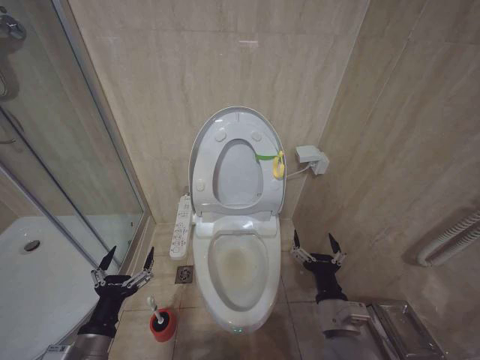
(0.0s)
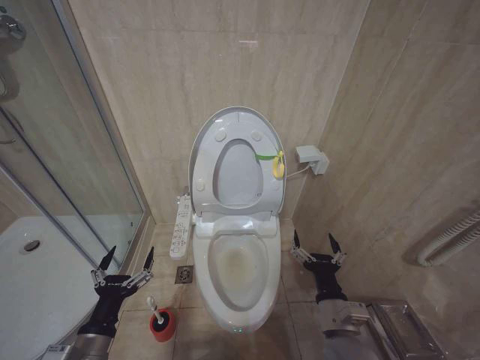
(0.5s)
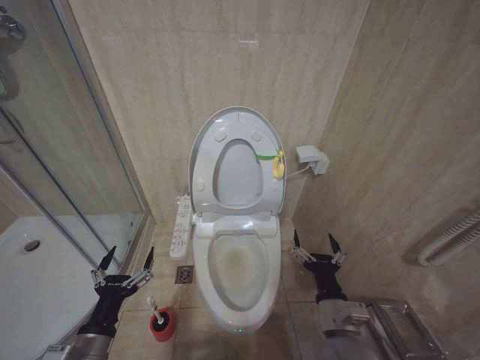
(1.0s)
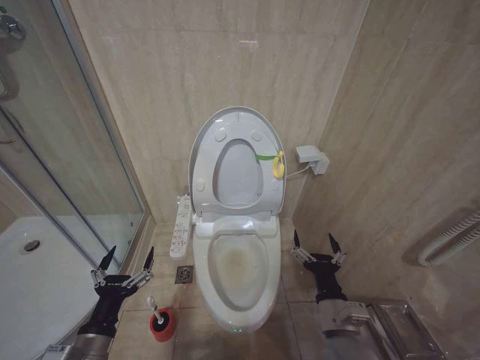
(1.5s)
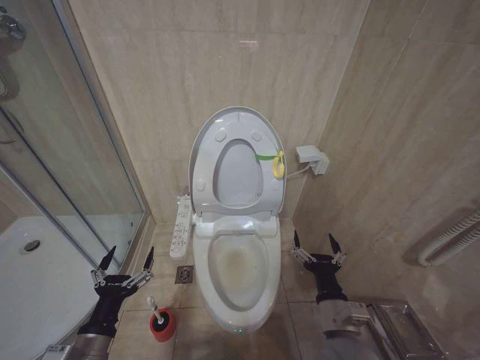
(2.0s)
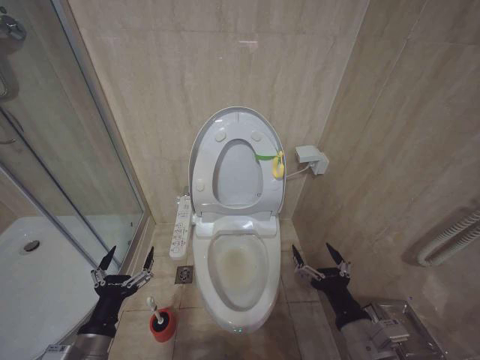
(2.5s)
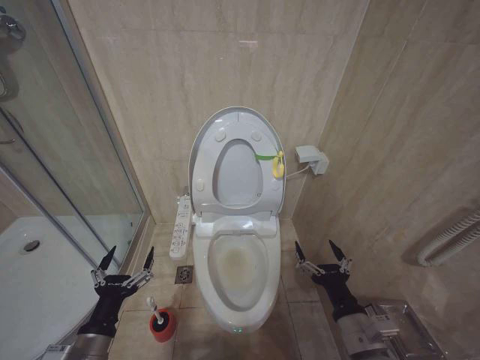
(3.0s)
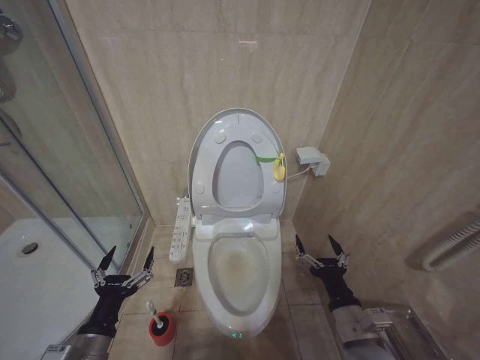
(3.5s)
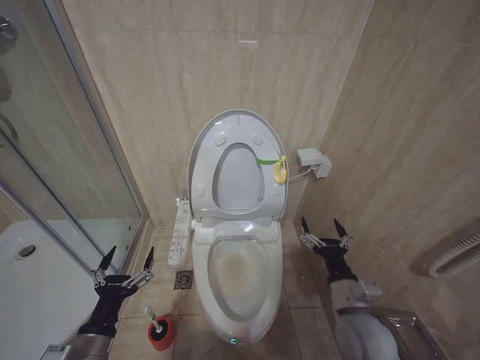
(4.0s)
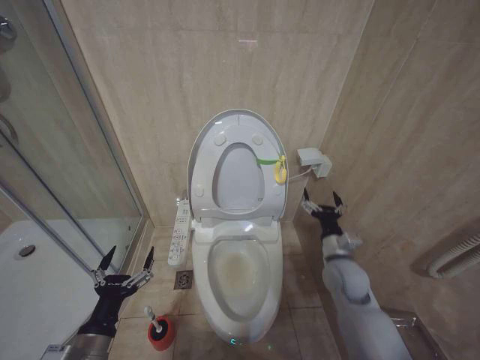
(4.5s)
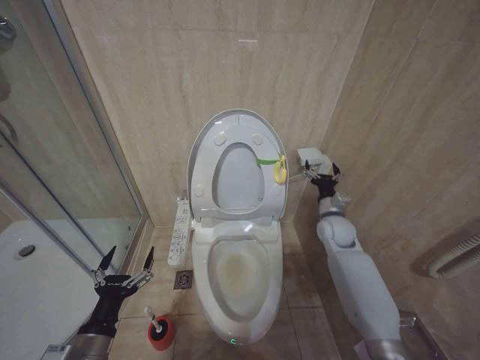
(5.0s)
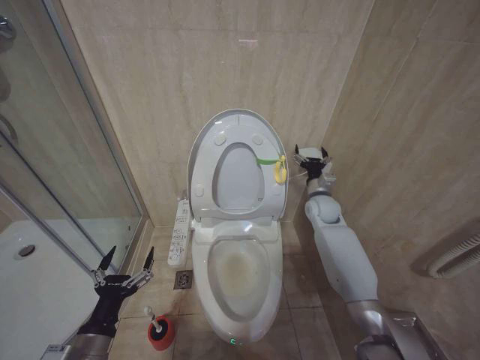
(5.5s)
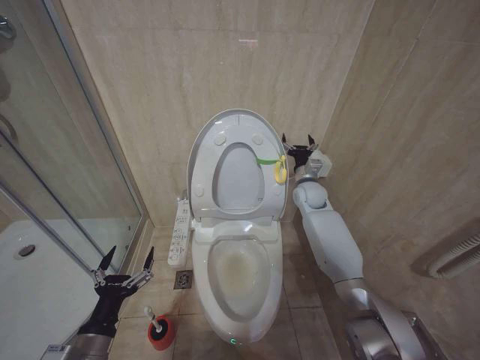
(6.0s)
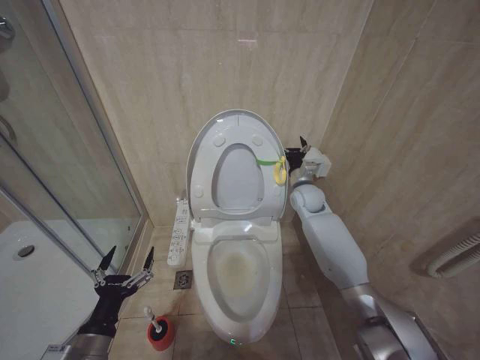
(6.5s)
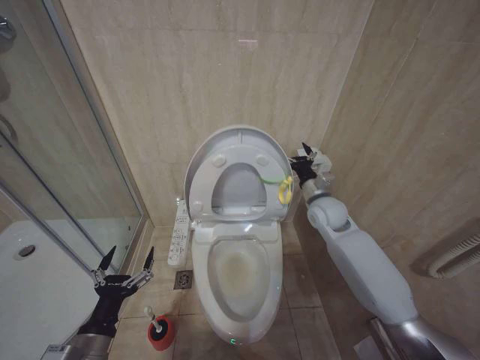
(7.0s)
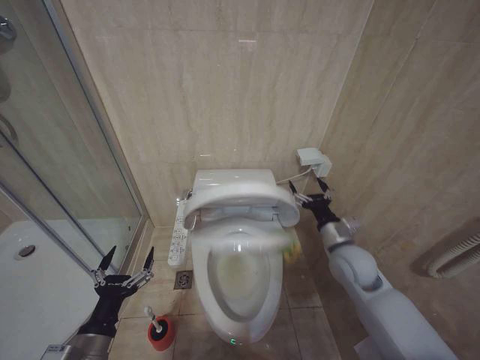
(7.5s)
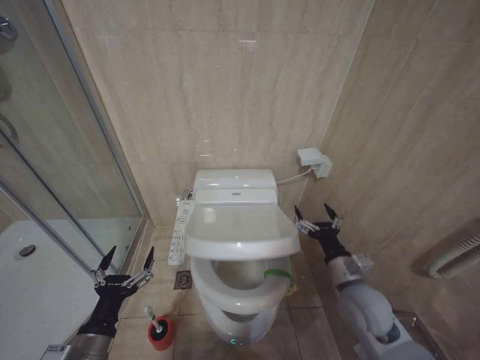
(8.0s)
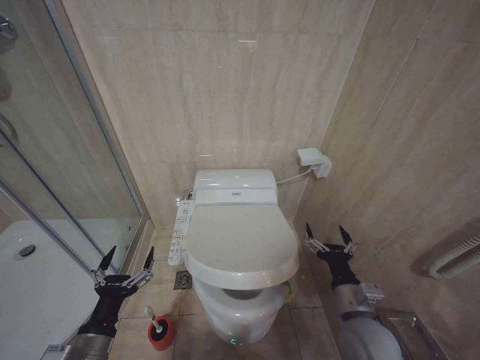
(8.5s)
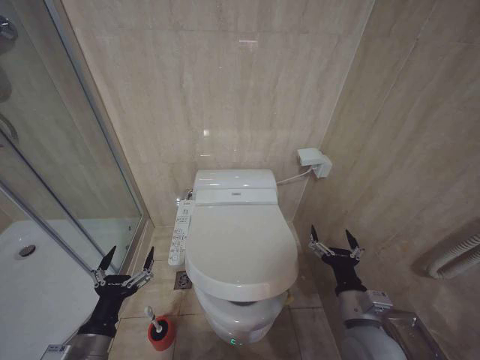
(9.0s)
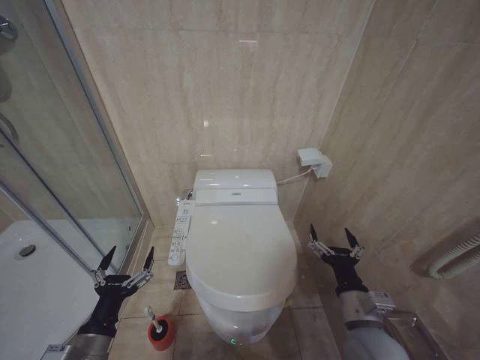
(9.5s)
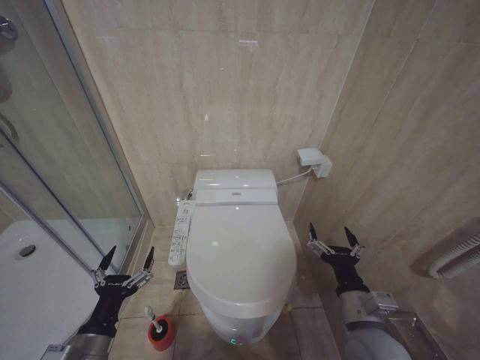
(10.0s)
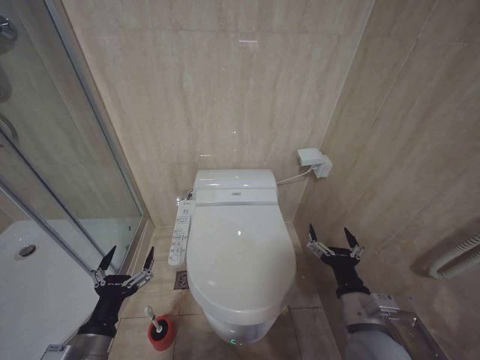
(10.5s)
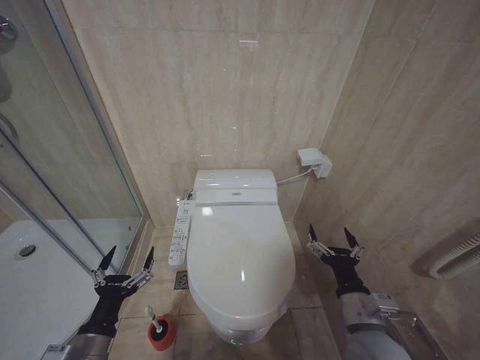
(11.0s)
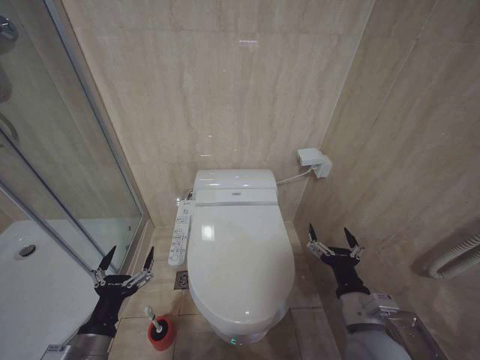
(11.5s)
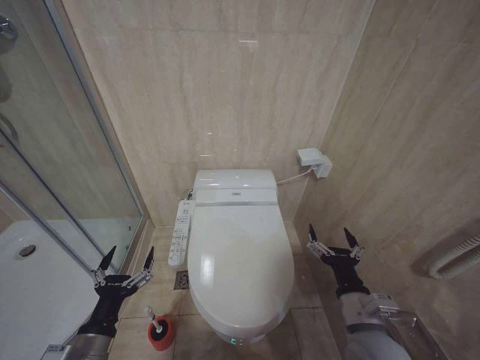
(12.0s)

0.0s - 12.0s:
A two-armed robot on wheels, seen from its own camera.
Task of the whole recording: Open the toilet lid, clean the toilet bowl with a toilet brush, close the toilet lid, and flush.
0.0s - 2.0s: Both grippers stay about where they are.
2.0s - 4.0s: The right gripper moves roughly 5 cm.
4.0s - 6.0s: The right gripper moves forward, roughly 35 cm.
6.0s - 8.0s: The right gripper goes some 30 cm backward.
8.0s - 10.0s: The right gripper travels backward by approximately 10 cm.
10.0s - 12.0s: Neither gripper changes place.

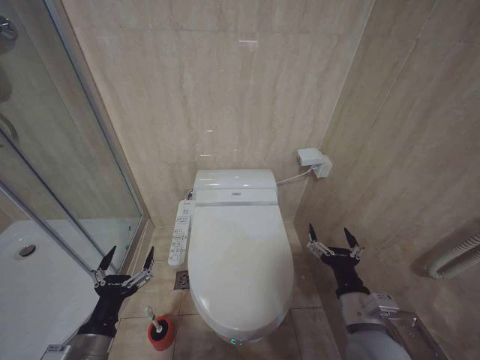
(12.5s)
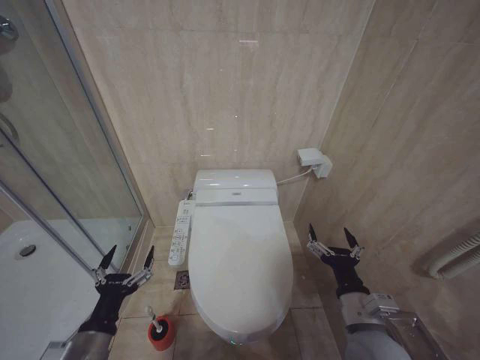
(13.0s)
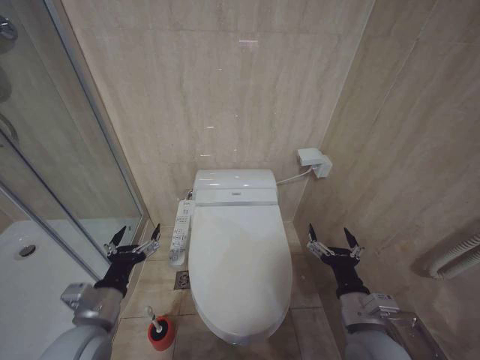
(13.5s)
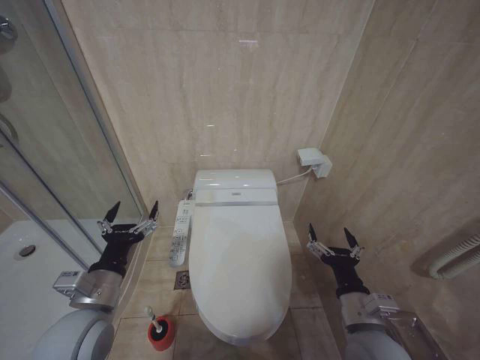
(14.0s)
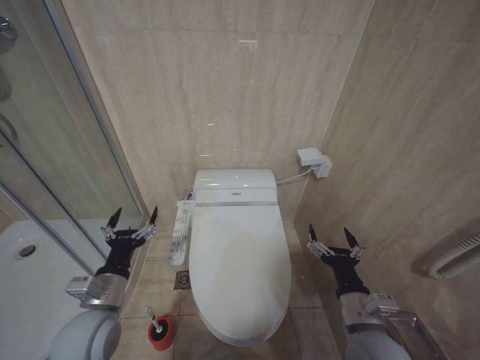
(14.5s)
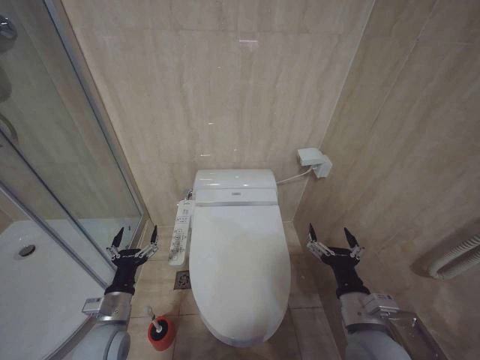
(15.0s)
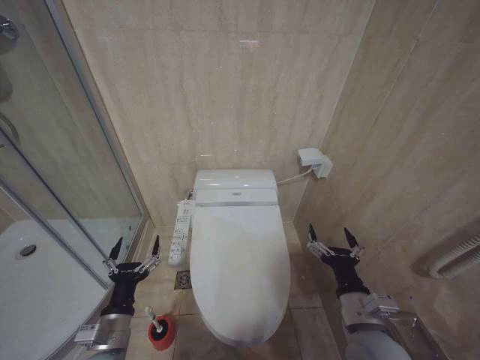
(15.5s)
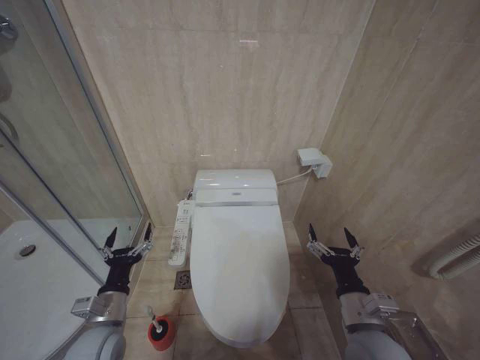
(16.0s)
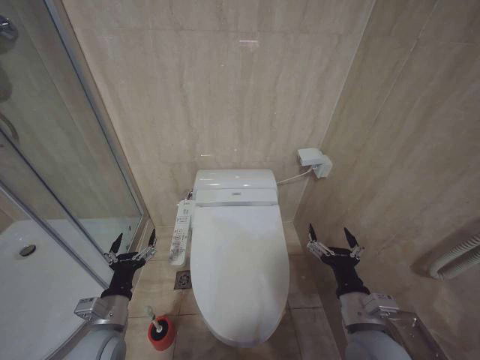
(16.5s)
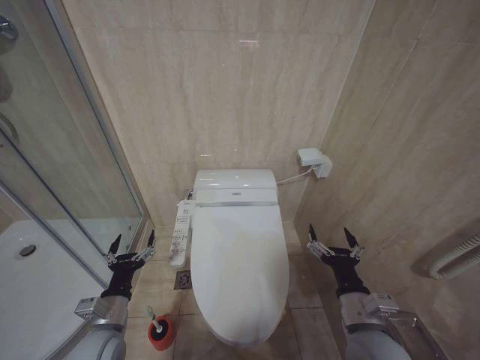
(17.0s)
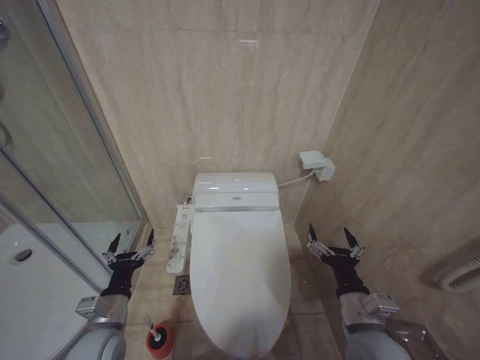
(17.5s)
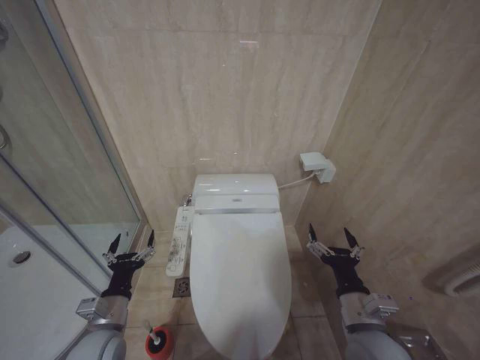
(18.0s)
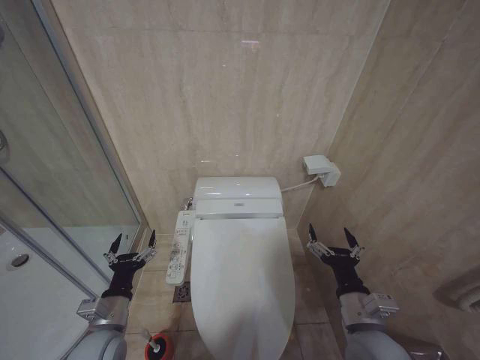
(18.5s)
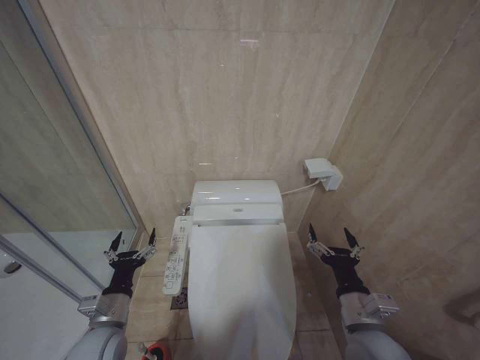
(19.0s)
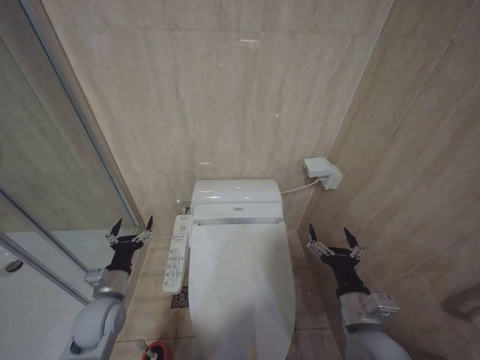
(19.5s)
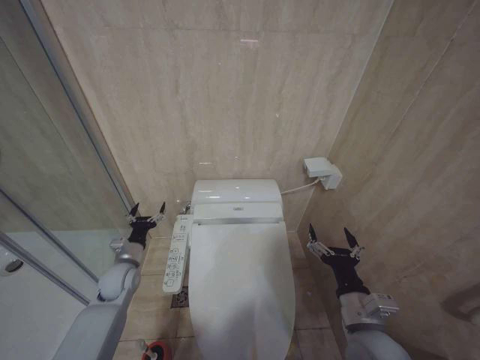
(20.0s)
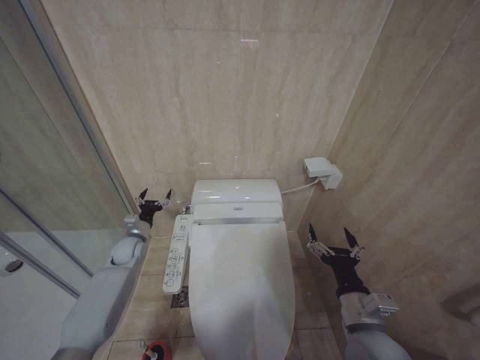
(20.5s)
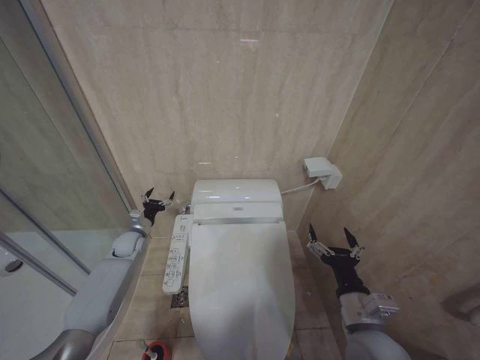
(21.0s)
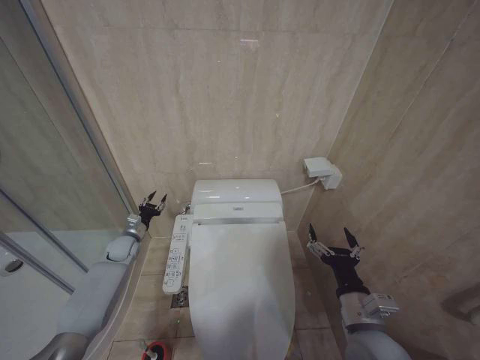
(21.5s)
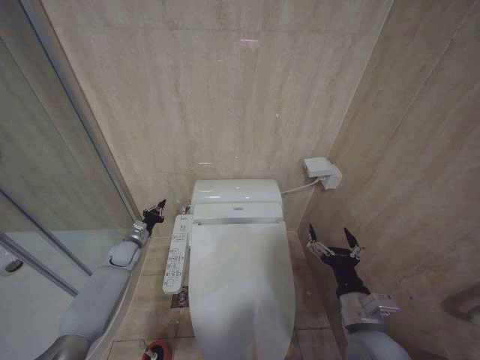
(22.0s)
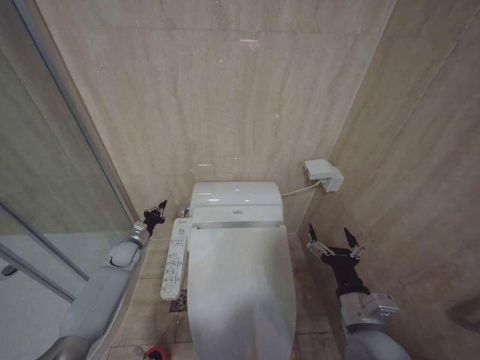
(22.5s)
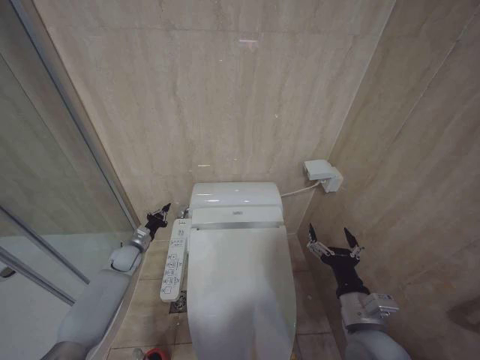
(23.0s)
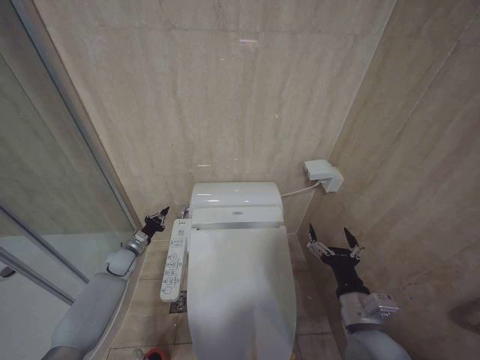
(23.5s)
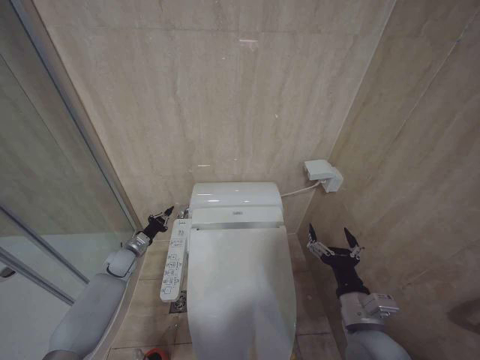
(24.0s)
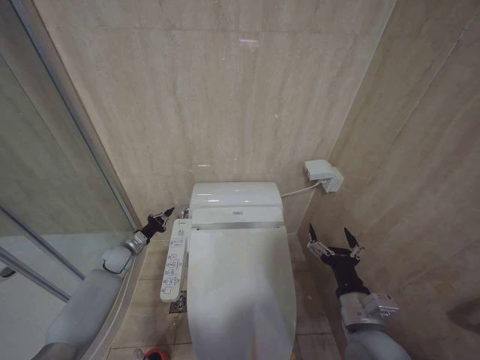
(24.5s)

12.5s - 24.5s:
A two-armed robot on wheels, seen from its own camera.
Task of the whole recording: Open the toilet lid, clean the toilet bowl with a toilet brush, close the toilet lid, and flush.
12.5s - 14.5s: The left gripper is displaced forward and upward by approximately 10 cm.
14.5s - 16.5s: The left gripper is displaced downward by roughly 10 cm.
16.5s - 18.5s: Both grippers stay about where they are.
18.5s - 20.5s: The left gripper shifts roughly 25 cm forward.
20.5s - 22.5s: The left gripper moves roughly 5 cm, and closes its fingers.

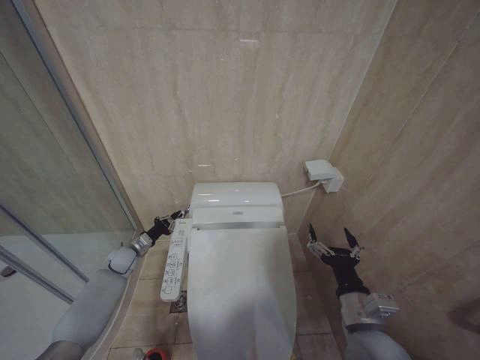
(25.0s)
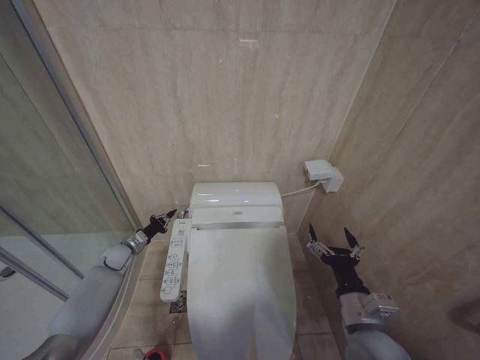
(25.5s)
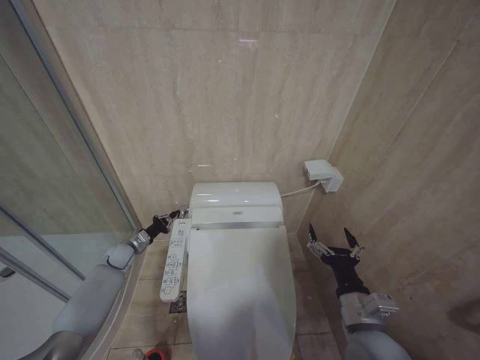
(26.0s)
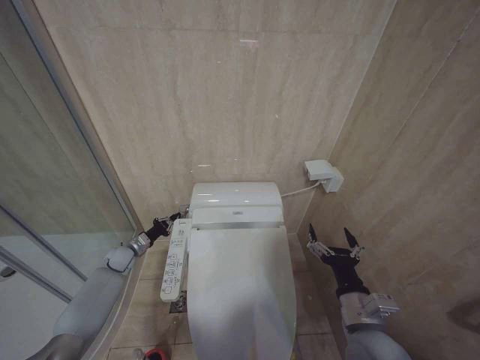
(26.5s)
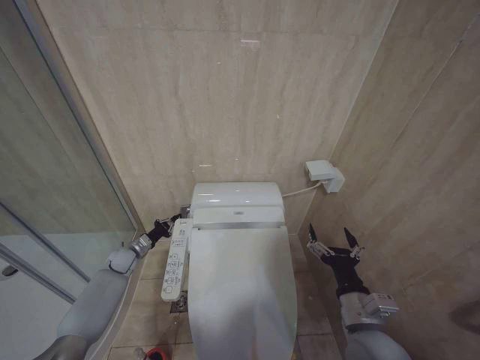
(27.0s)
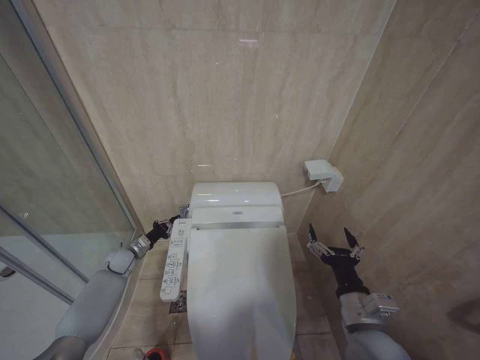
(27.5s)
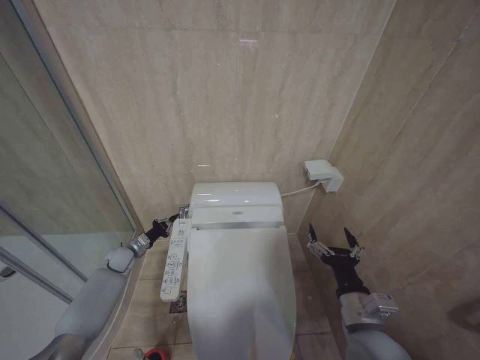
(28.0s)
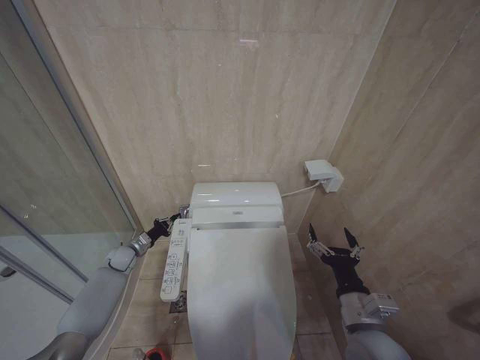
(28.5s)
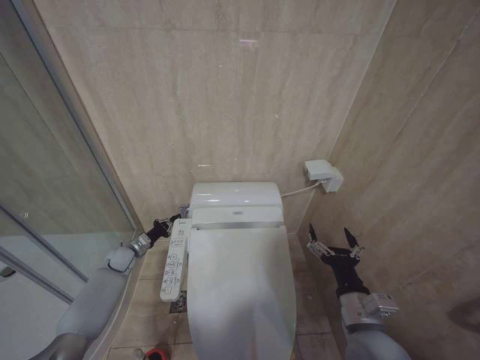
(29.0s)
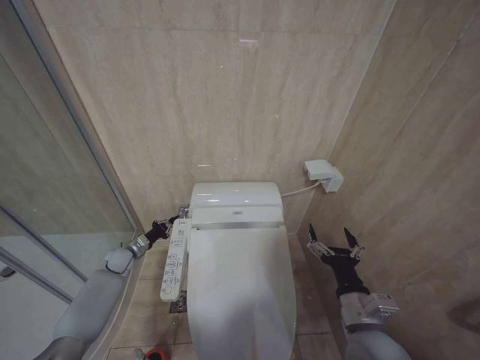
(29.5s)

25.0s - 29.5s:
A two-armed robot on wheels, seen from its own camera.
Task of the whole recording: Open the toilet lid, clean the toilet bowl with a toilet brush, close the toilet lid, and flush.
27.0s - 29.5s: The two grippers keep their place.
